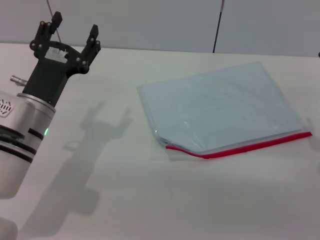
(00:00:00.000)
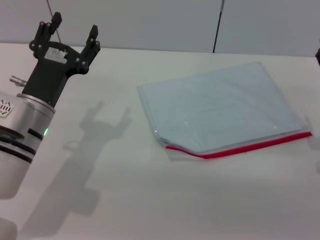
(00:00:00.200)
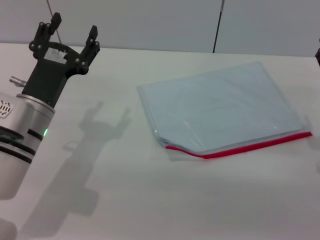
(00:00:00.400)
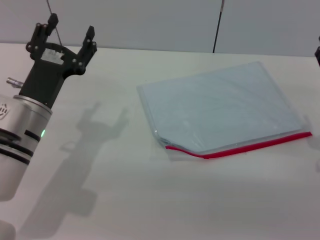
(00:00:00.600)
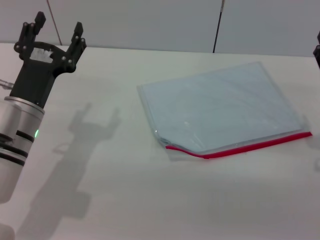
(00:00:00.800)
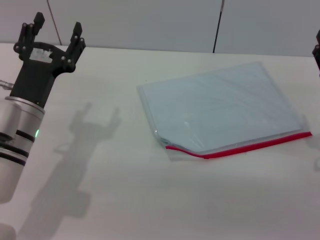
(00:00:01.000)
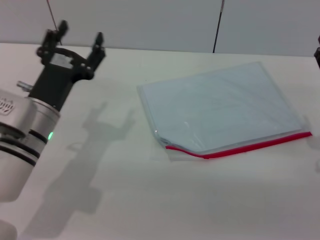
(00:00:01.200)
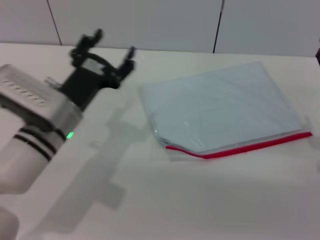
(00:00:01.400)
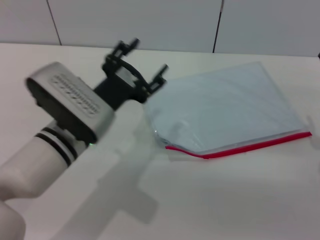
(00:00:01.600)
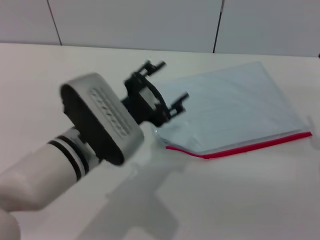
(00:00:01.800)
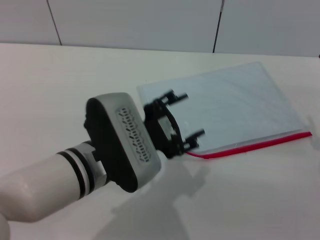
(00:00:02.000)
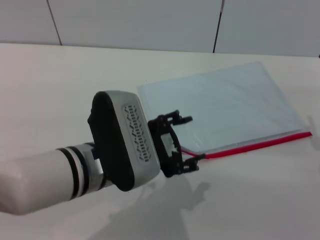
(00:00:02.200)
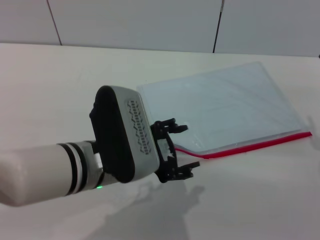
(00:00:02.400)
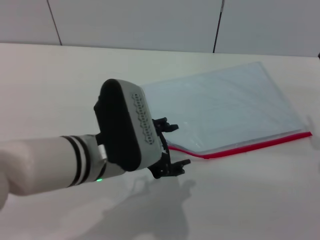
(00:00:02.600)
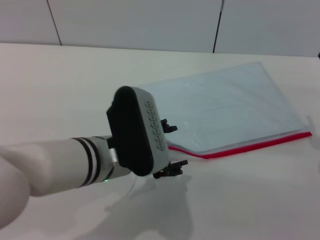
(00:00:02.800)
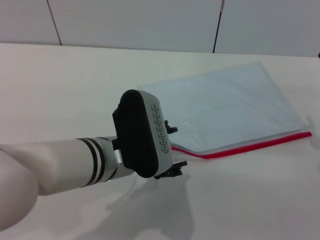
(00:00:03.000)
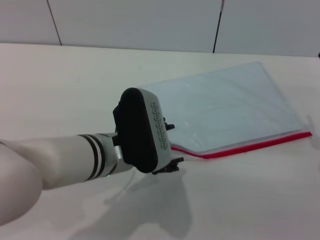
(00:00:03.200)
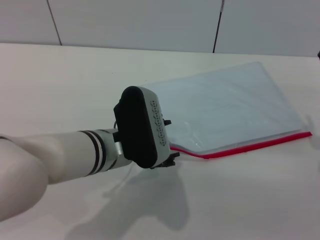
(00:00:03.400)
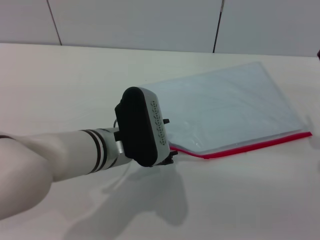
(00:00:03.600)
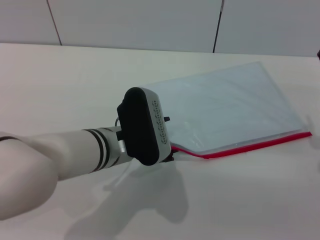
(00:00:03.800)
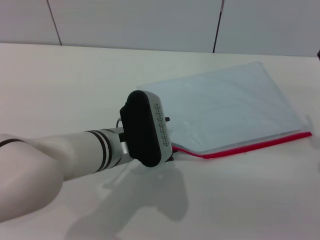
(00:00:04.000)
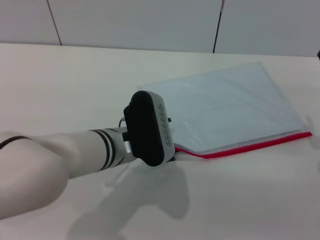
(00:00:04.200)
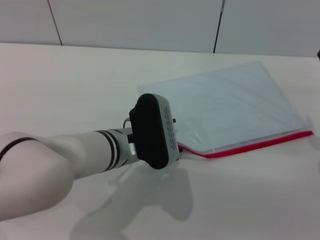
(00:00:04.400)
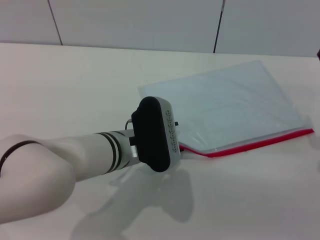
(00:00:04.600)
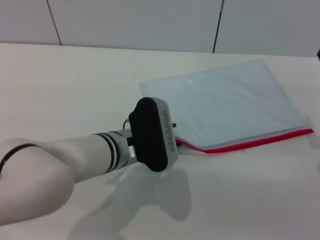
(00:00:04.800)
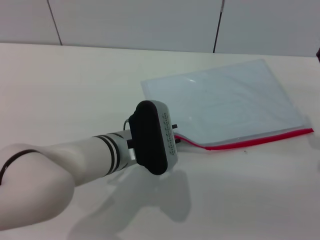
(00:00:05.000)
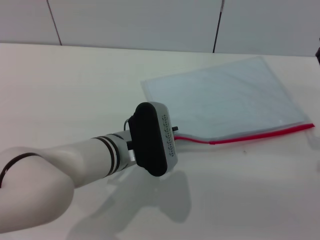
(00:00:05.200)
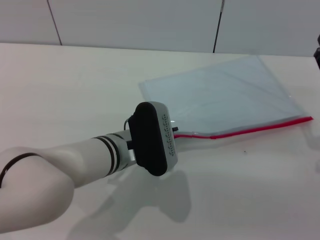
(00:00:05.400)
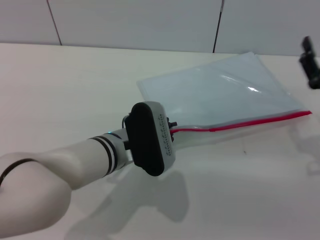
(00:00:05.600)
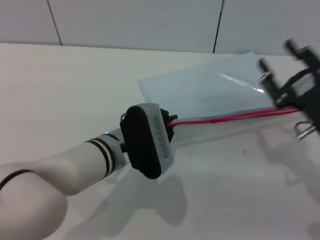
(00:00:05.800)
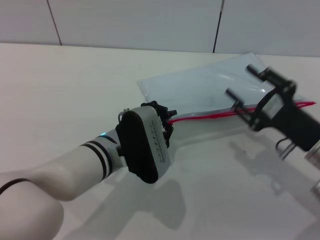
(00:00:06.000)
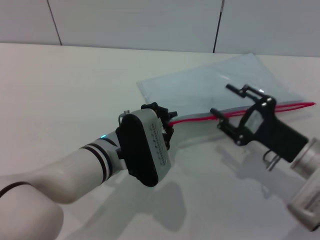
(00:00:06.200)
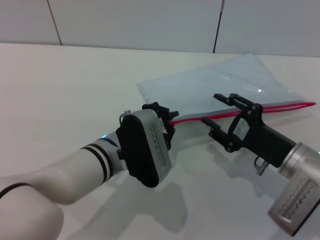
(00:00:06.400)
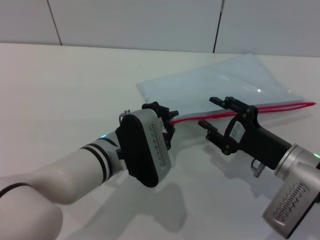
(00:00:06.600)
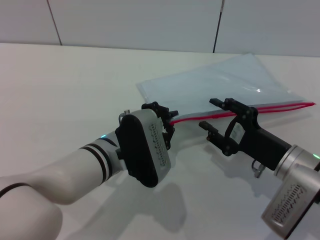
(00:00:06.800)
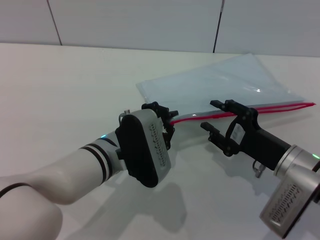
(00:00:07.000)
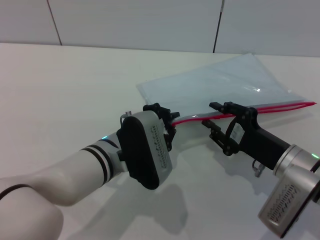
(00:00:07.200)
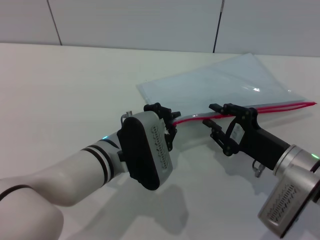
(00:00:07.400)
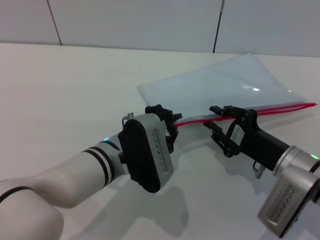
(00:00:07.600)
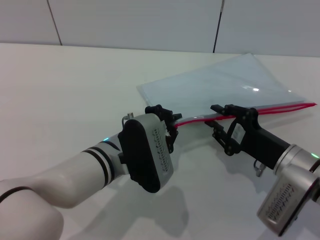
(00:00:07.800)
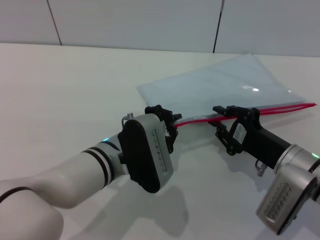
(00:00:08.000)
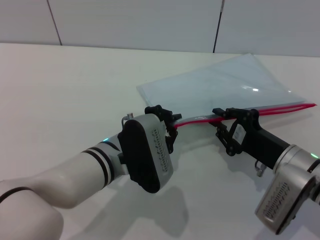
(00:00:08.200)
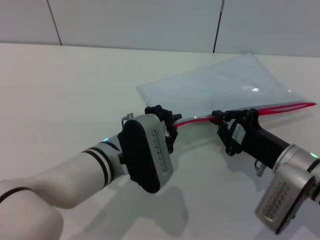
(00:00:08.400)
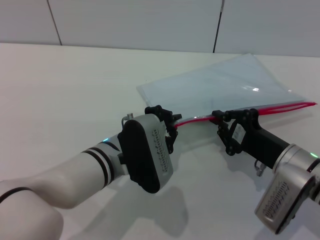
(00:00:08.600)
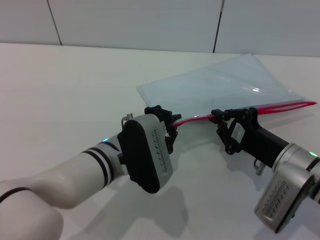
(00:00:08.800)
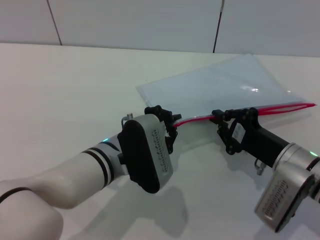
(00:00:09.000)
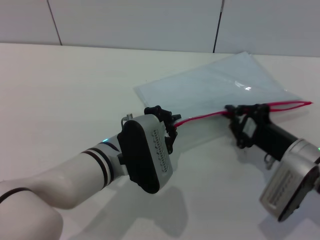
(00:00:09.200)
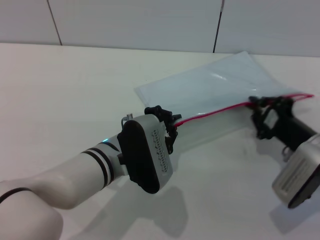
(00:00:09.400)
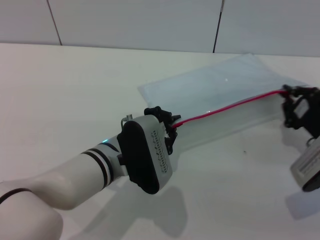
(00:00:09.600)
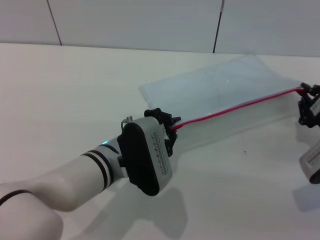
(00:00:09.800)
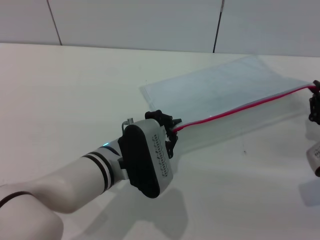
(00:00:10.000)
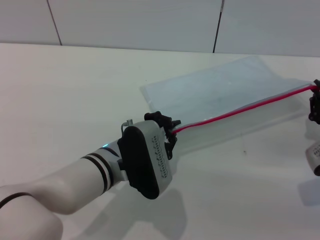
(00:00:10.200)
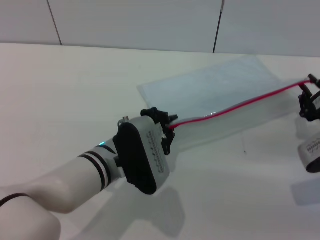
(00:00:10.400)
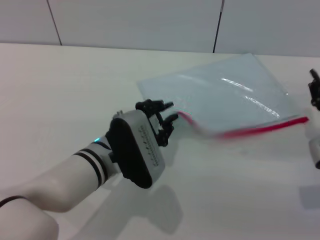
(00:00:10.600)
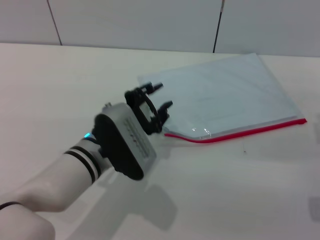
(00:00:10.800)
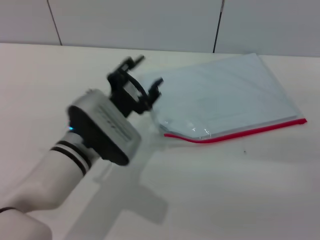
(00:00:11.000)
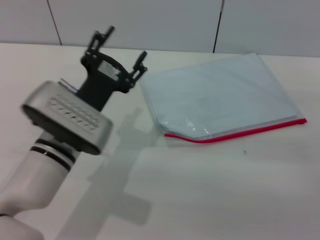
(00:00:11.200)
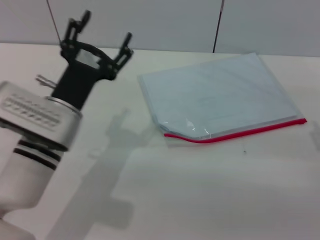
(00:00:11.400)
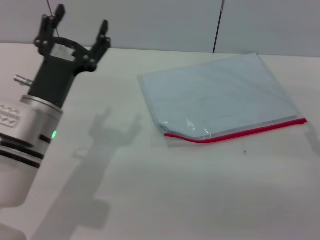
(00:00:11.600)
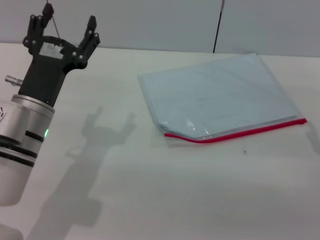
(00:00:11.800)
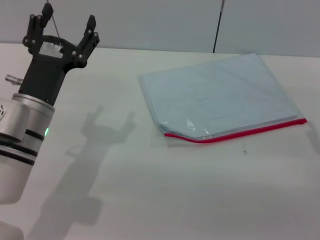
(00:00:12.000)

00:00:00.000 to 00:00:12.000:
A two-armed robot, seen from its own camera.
Step, 00:00:00.000 to 00:00:06.000: Pick up the transparent plastic bag with the left gripper.
Step, 00:00:06.200 to 00:00:10.400: Pulling up the zipper on the transparent plastic bag with the right gripper to close it.
Step, 00:00:10.600 to 00:00:11.000: Place the transparent plastic bag.
00:00:00.000 to 00:00:01.600: The left gripper travels to the right by roughly 5 cm.
00:00:01.600 to 00:00:03.000: The left gripper ends up approximately 5 cm from where it was.
00:00:03.000 to 00:00:04.400: The left gripper ends up some 5 cm from where it was.
00:00:04.400 to 00:00:06.000: The left gripper closes its fingers.
00:00:07.600 to 00:00:09.000: The right gripper closes its fingers.
00:00:09.000 to 00:00:10.400: The right gripper moves to the right, about 10 cm.
00:00:10.400 to 00:00:12.000: The right gripper shifts by some 5 cm, and opens its fingers; the left gripper heads to the left, covering about 10 cm, and opens its fingers.
